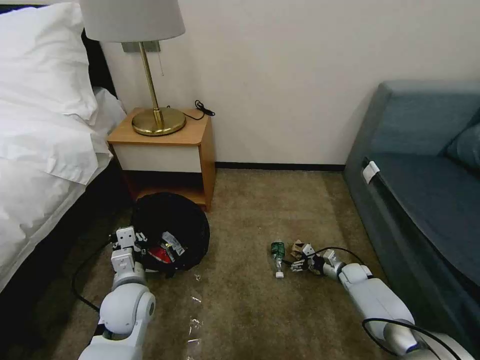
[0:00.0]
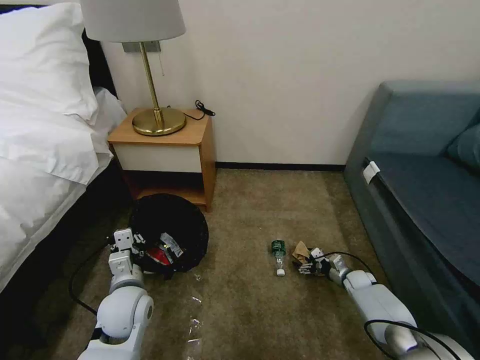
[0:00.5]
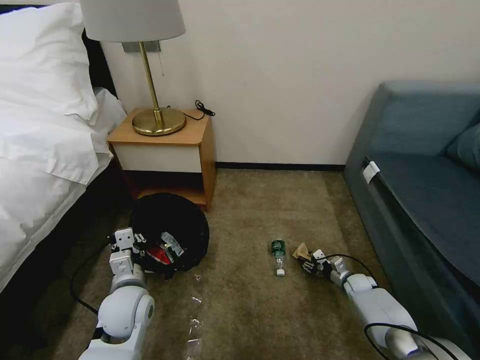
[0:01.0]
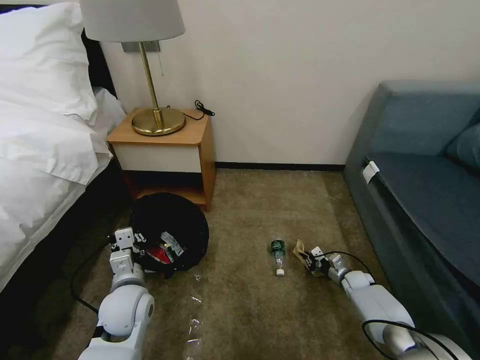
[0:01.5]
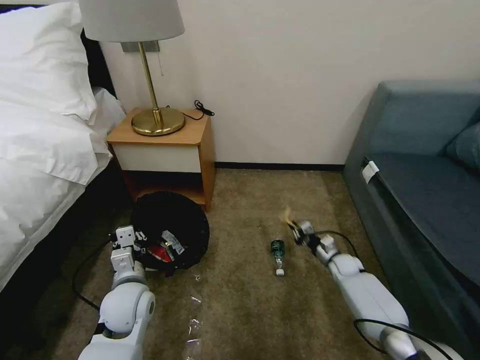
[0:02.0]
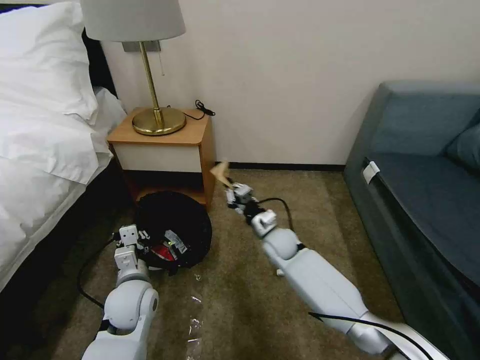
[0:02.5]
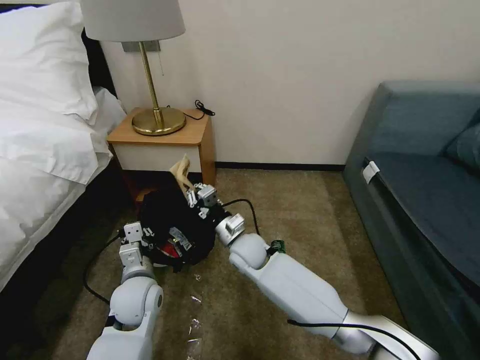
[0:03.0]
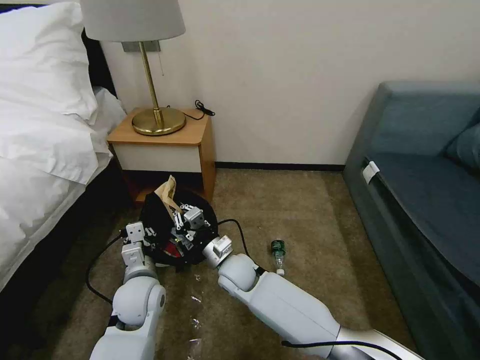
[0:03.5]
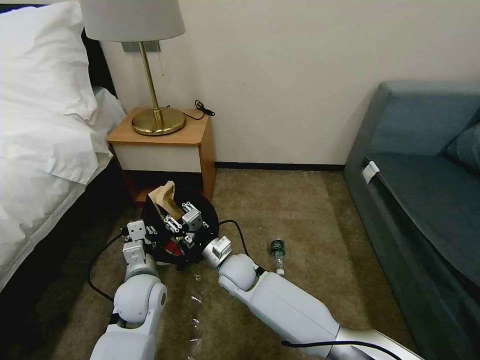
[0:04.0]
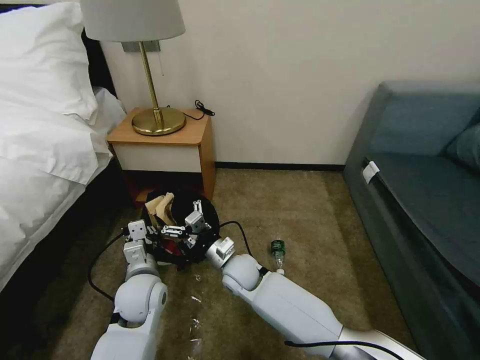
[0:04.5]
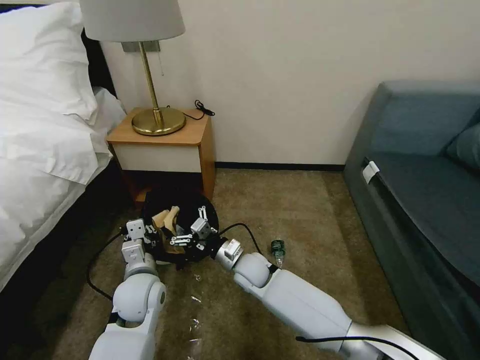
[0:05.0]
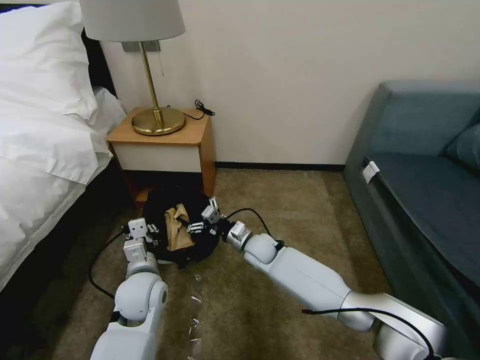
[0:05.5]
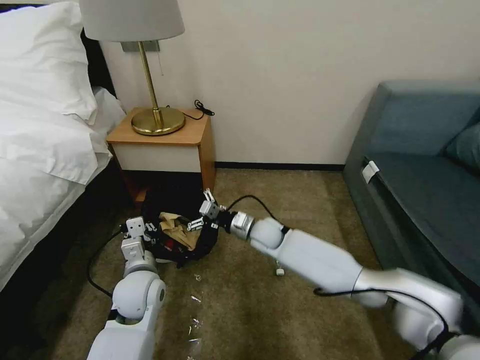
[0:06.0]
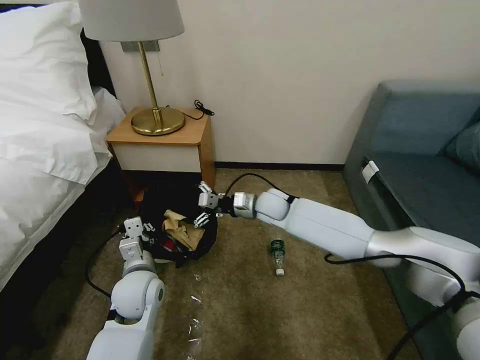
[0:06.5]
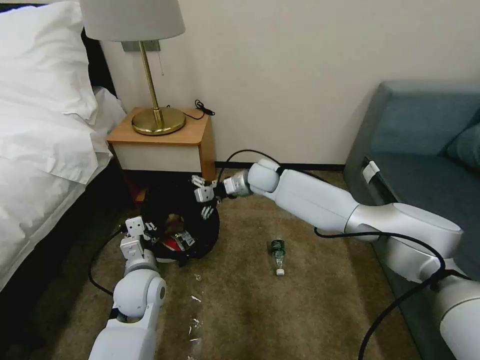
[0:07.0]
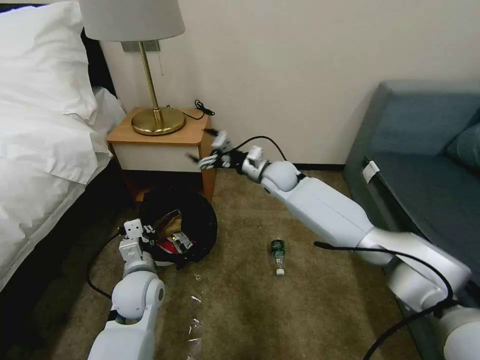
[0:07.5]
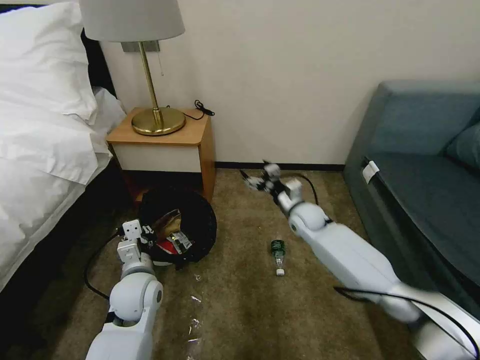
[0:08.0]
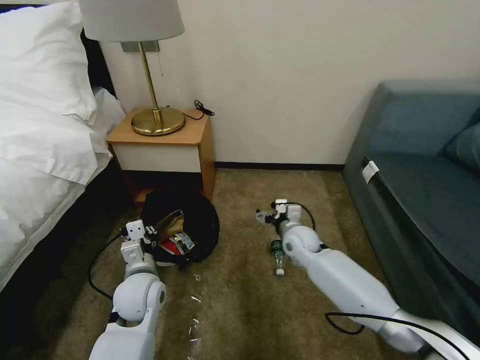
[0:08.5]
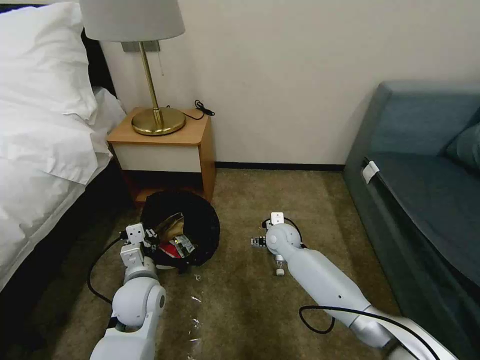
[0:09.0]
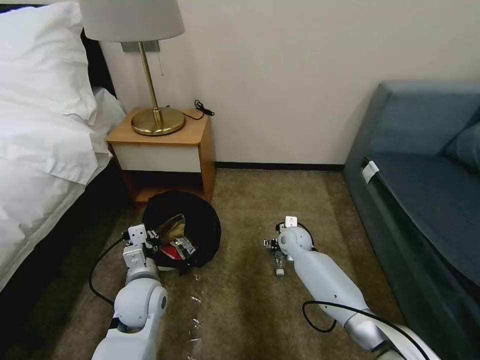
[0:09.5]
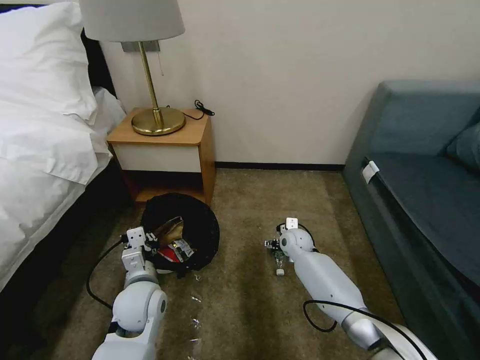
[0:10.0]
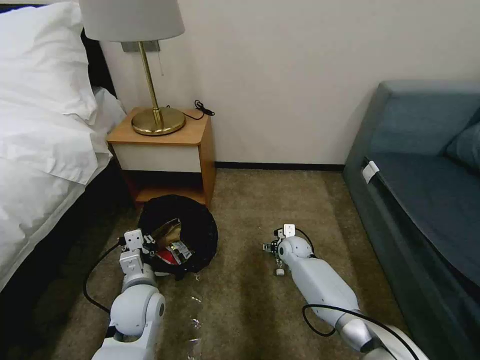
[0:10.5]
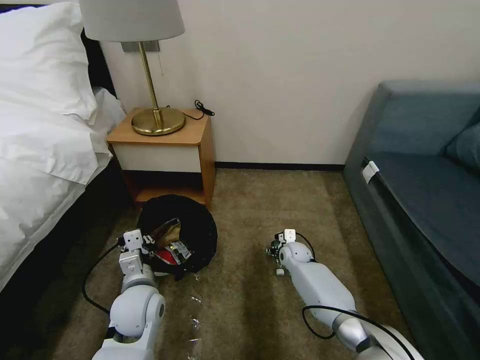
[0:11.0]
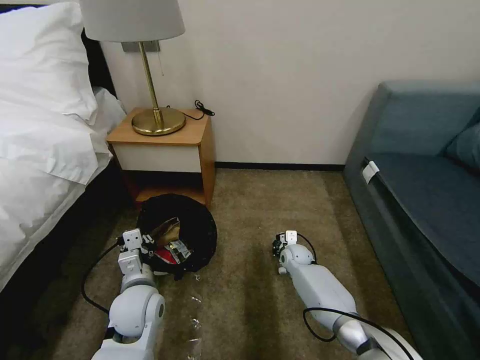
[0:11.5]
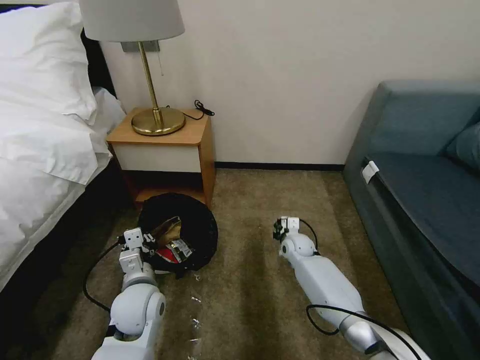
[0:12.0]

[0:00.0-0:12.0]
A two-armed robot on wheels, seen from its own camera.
Task of the whole recording: Pick up the trash bin, then pick up the garbage on the floor and place it into the trash bin.
0:00.0 to 0:02.0: The right gripper moves to the left, approximately 5 cm, and closes up.
0:02.0 to 0:04.0: The right gripper shifts approximately 35 cm to the left, and opens its fingers.
0:04.0 to 0:06.0: The right gripper moves forward and to the right, roughly 15 cm, and opens its fingers.
0:06.0 to 0:08.0: The right gripper is displaced to the right by approximately 15 cm.
0:08.0 to 0:10.0: The right gripper travels downward by roughly 10 cm, and goes to the left and returns, approximately 10 cm each way.
0:10.0 to 0:12.0: The right gripper closes up.

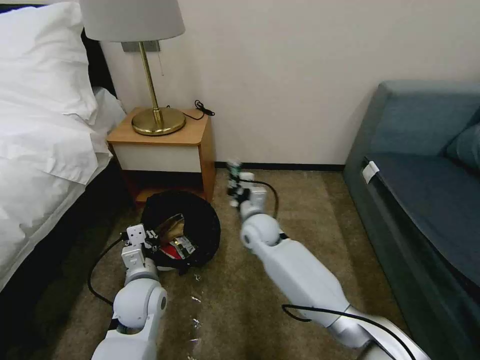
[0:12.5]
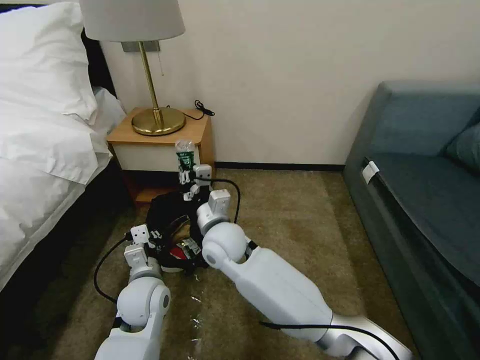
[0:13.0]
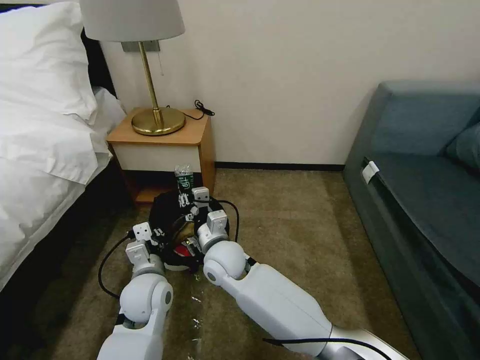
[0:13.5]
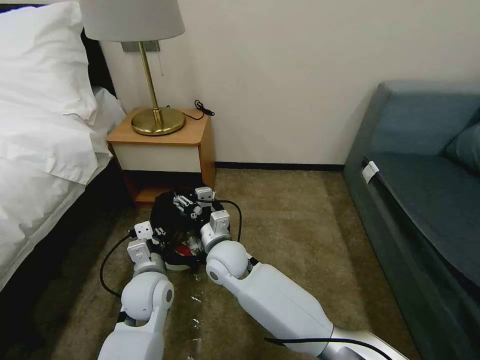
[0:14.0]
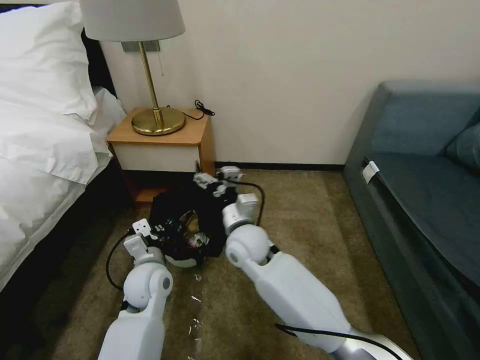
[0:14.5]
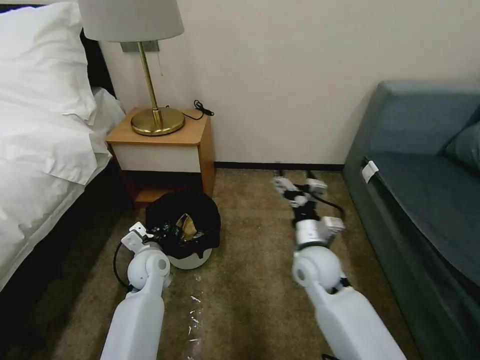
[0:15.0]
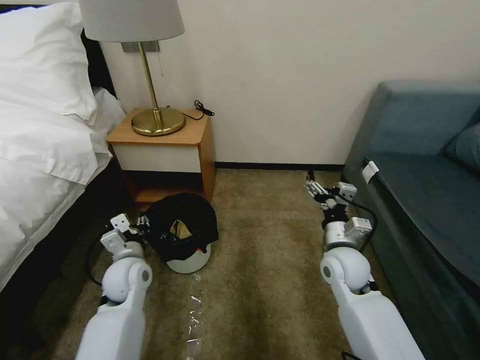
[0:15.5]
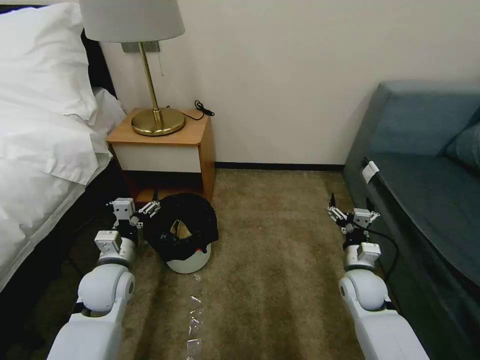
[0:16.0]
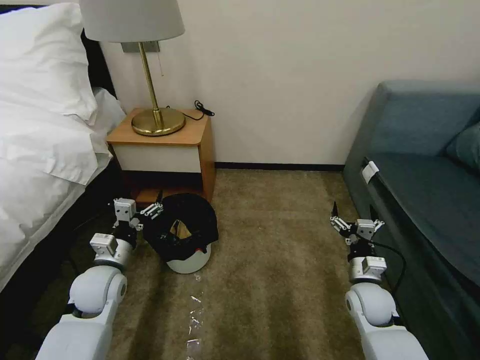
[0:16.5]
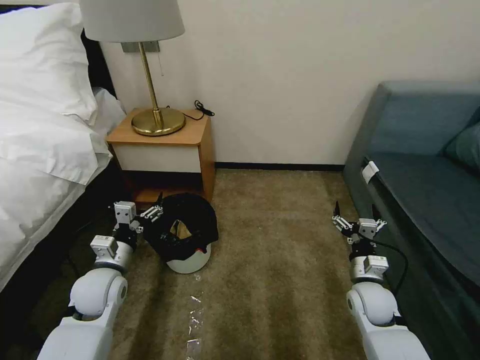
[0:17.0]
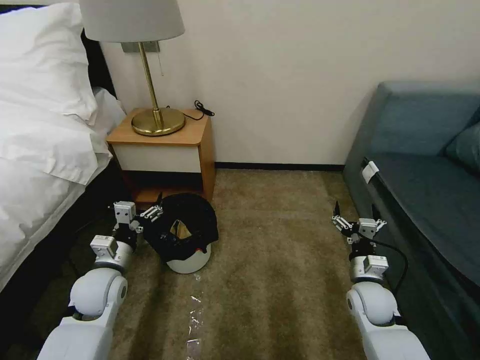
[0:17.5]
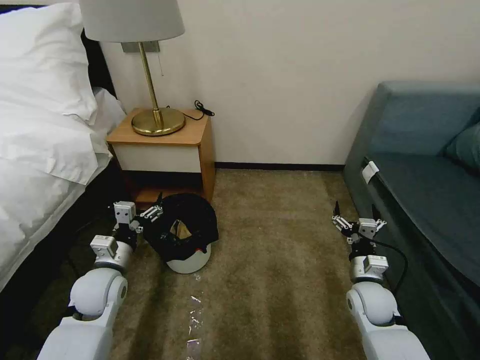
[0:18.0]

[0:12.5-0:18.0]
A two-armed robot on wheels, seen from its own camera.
Task of the whole recording: Pick up the trash bin, then pick up the garbage on the floor and place it into the trash bin.
0:12.5 to 0:14.5: The right gripper moves backward, some 5 cm, and opens up.
0:14.5 to 0:16.0: The left gripper goes approximately 10 cm to the left, and opens its fingers, while the right gripper travels to the right by about 30 cm.
0:16.0 to 0:18.0: The grippers stay close to where they were, moving slightly.

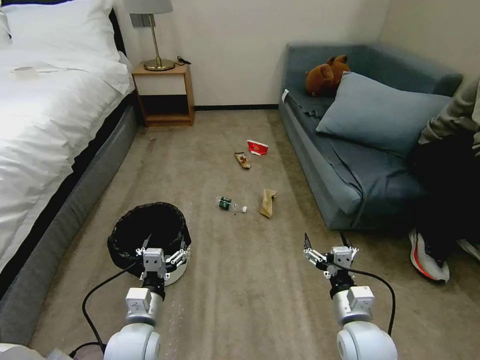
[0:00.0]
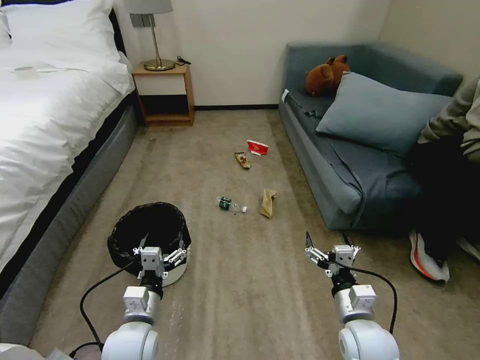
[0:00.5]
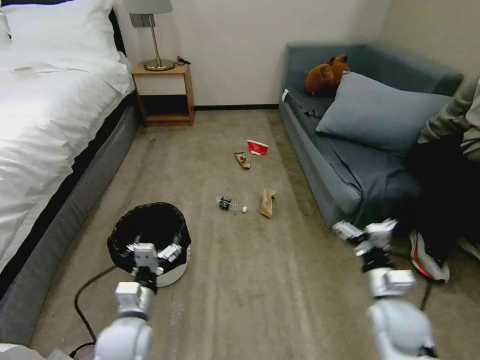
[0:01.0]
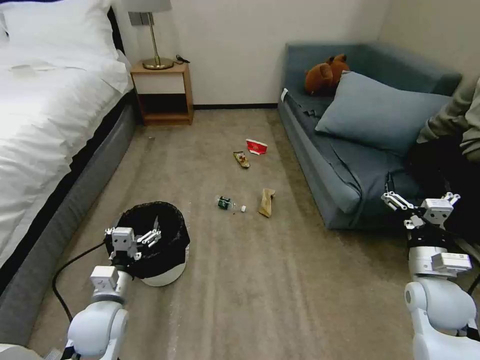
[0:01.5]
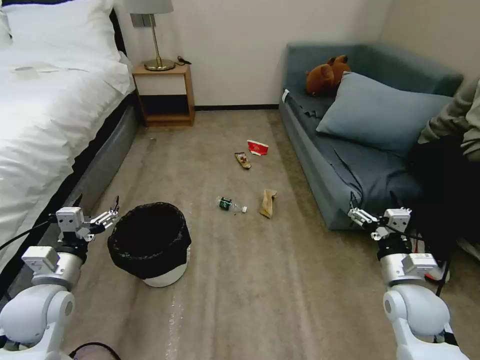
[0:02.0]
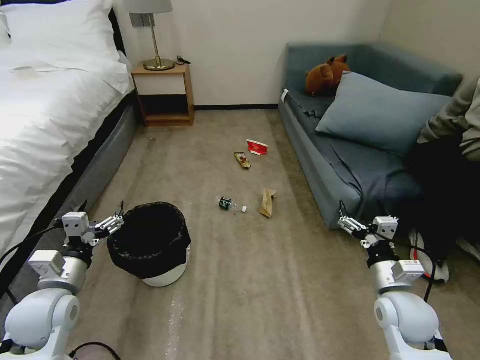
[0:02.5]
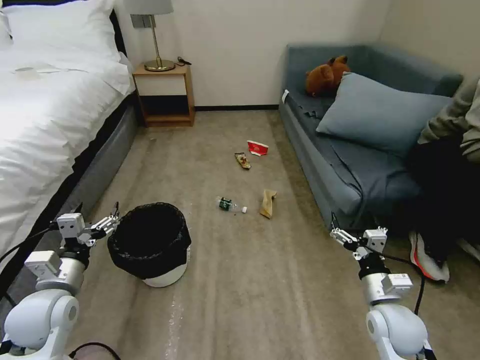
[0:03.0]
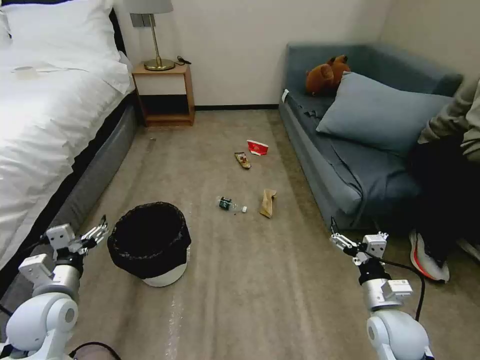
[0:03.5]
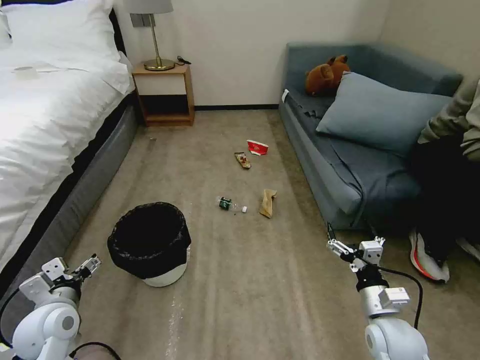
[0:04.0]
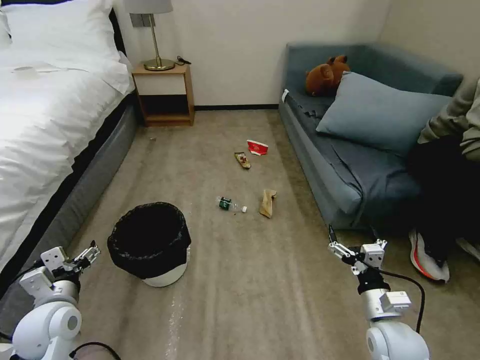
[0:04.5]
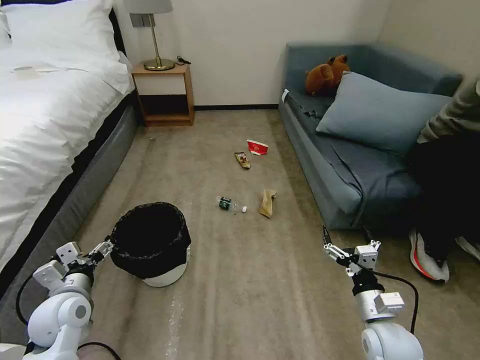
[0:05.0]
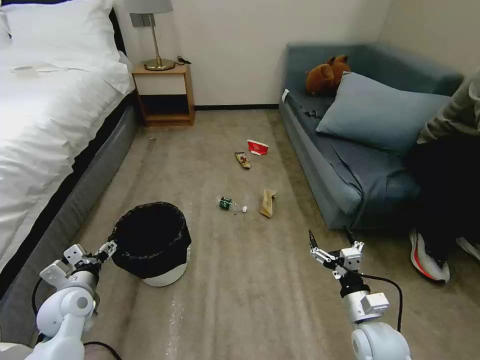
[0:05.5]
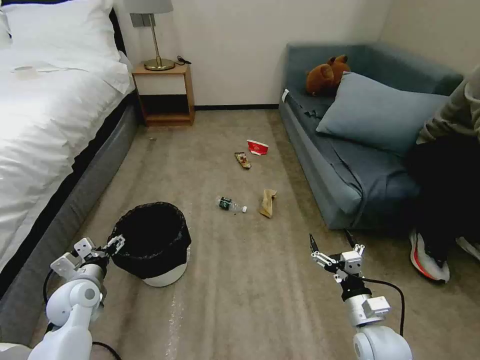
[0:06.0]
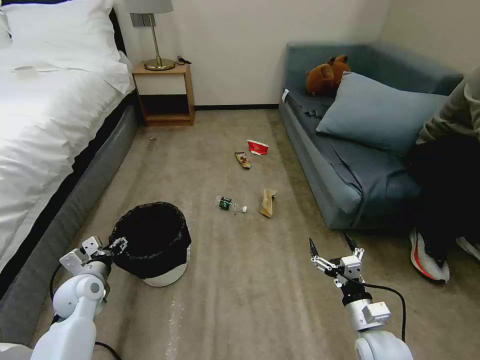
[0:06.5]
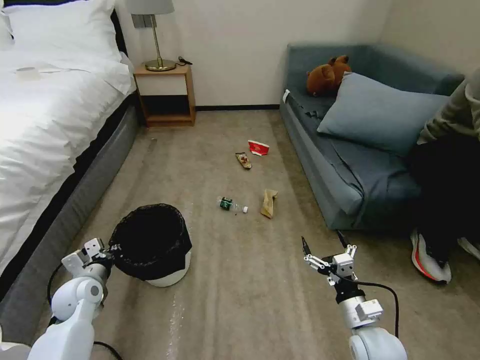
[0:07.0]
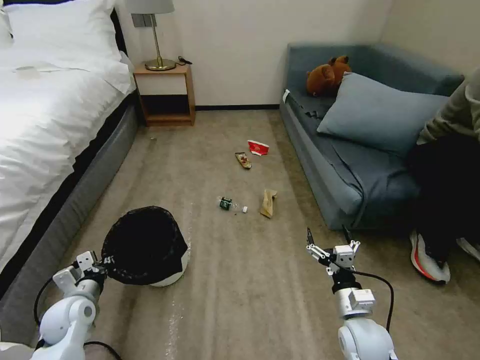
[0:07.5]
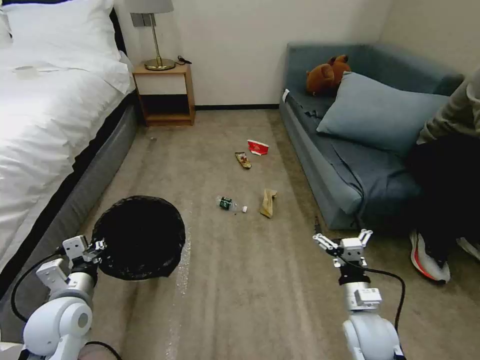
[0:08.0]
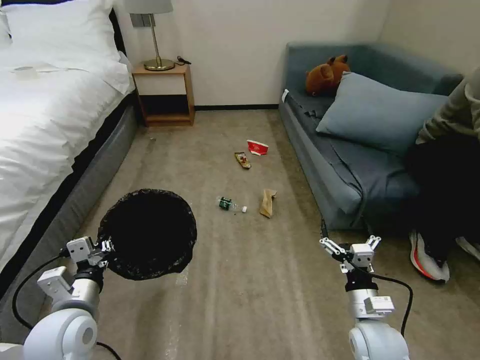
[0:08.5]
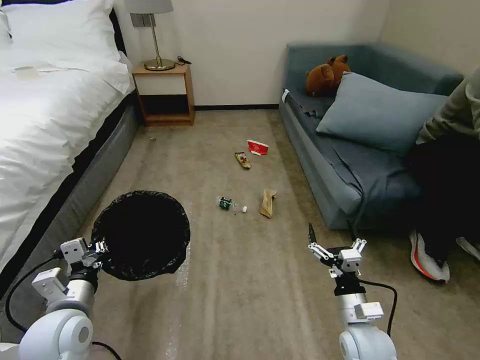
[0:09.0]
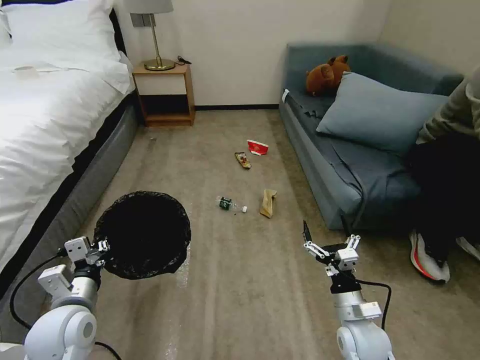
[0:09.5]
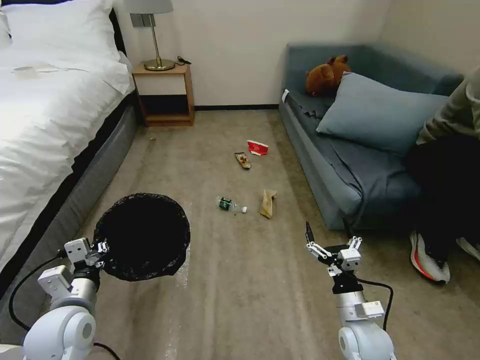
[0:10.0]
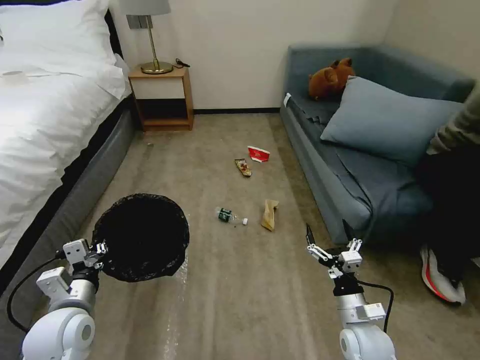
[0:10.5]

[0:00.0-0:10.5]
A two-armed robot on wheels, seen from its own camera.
Task of the whole recording: Pick up the trash bin, then pick up the garbage on the floor and place it into the trash bin.
0:02.0 to 0:04.0: The right gripper shifts by some 5 cm. Meanwhile the left gripper is displaced to the left by approximately 10 cm.
0:04.0 to 0:06.5: The left gripper travels forward and downward by about 10 cm, and closes its fingers.
0:06.5 to 0:08.5: The left gripper is displaced backward, upward and to the right by roughly 15 cm, and closes its fingers.
0:08.5 to 0:10.5: There are only small adjustments of the grippers.
